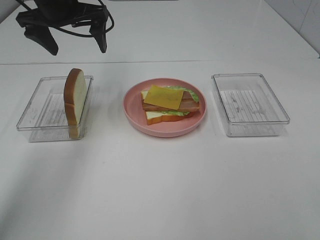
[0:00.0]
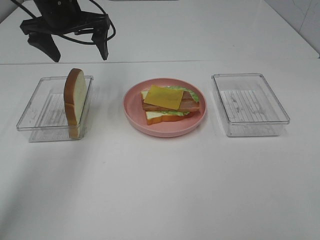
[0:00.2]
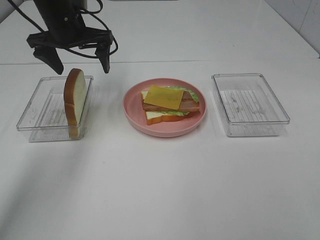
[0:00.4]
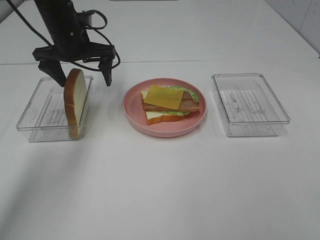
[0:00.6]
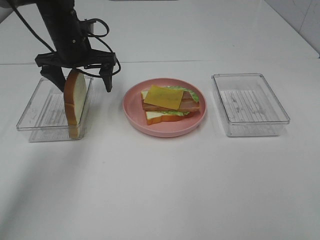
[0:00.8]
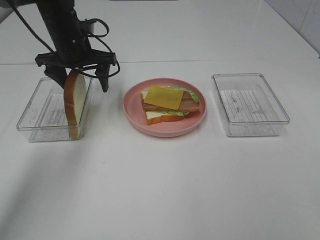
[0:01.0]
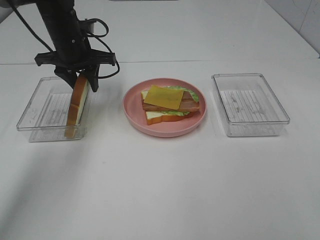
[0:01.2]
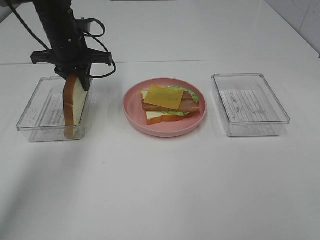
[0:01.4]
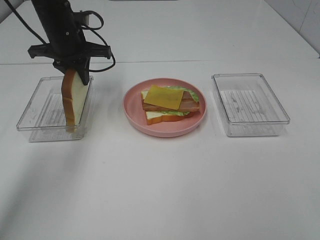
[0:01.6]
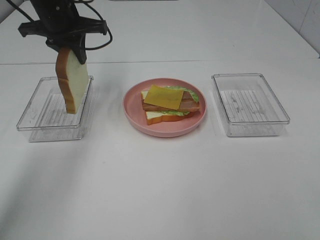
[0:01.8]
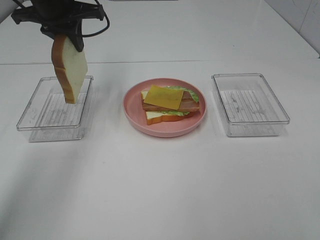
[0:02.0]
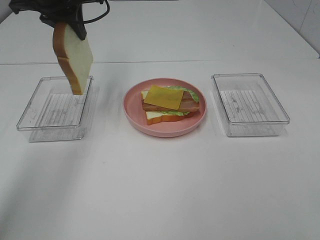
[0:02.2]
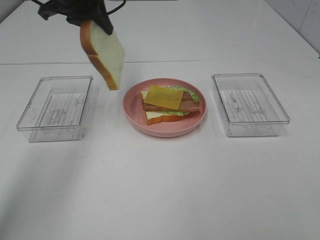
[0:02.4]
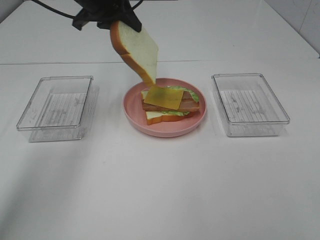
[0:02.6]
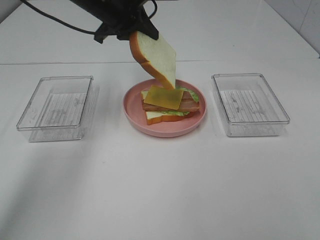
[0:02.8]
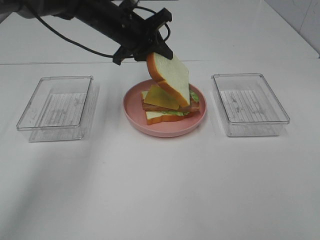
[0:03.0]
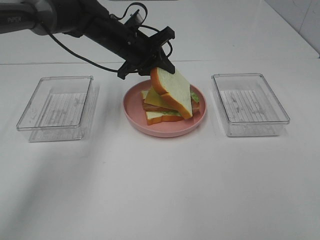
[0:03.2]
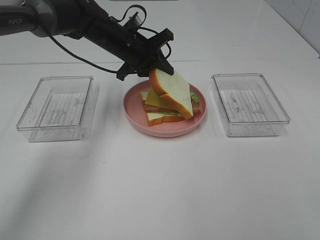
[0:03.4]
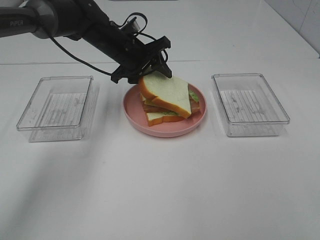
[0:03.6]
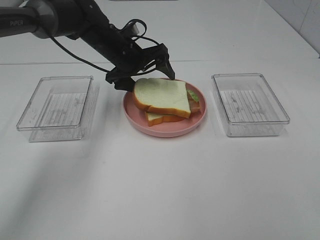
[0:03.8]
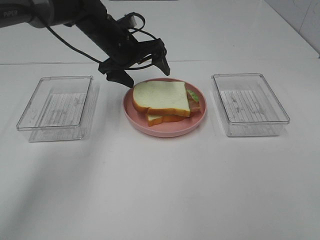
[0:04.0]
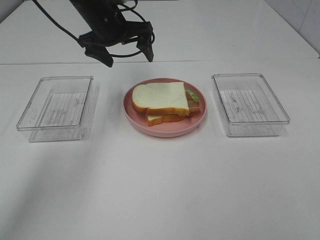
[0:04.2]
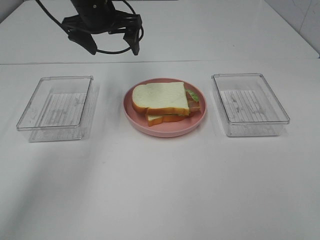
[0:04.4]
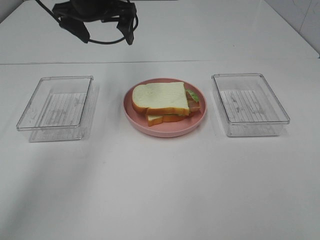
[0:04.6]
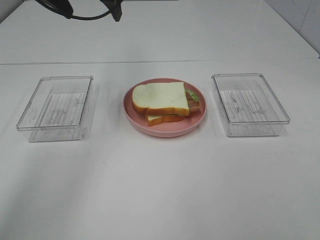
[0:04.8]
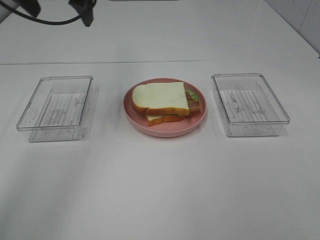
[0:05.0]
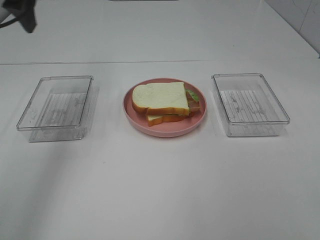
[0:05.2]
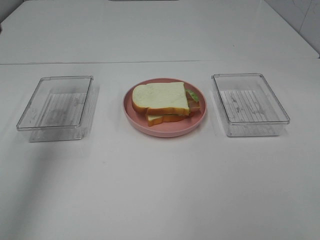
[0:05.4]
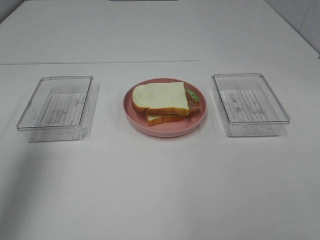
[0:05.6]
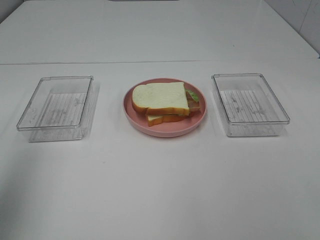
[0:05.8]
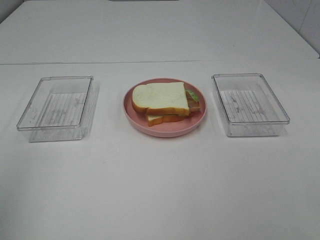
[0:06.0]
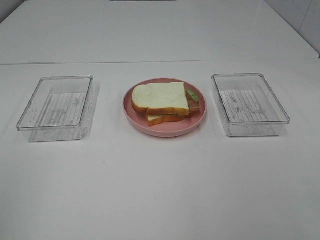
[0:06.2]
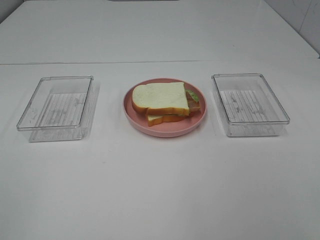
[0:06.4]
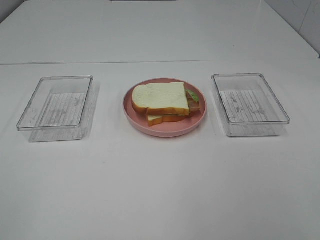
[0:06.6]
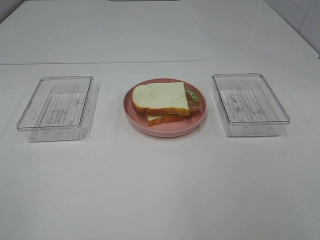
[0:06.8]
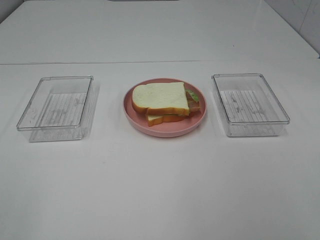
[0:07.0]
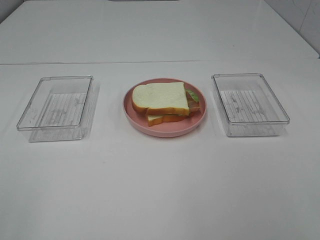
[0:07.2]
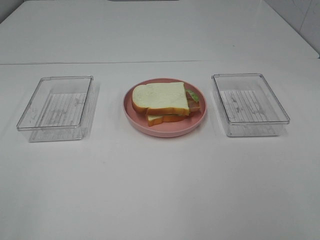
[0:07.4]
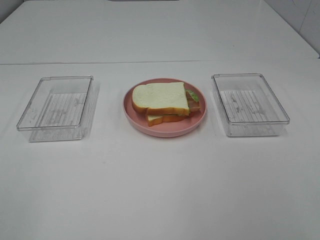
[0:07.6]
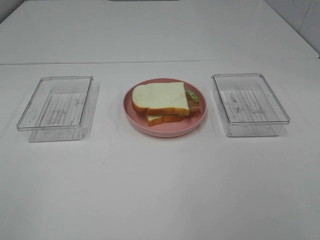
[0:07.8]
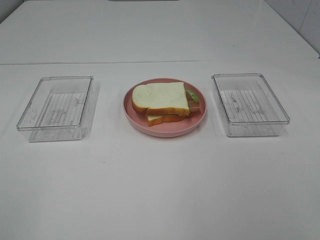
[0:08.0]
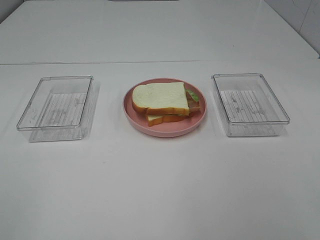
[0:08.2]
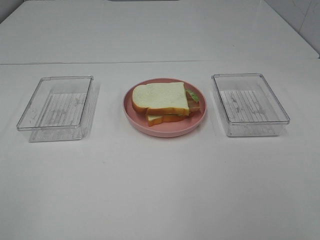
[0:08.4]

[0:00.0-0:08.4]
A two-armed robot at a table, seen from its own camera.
Task of the whole recording: Make sandwiches.
Step, 0:01.6 to 0:04.0: Left hand:place the bread slice on the cheese slice.
0:00.0 to 0:01.4: The left gripper goes approximately 10 cm downward, and closes its fingers.
0:01.4 to 0:02.8: The left gripper moves to the right and upward, roughly 10 cm.
0:02.8 to 0:04.2: The left gripper reaches roughly 10 cm downward, then returns, and opens up.
0:04.2 to 0:05.6: The left gripper shifts roughly 35 cm backward, to the left and upward.
0:05.6 to 0:07.0: The left gripper shifts about 25 cm backward.

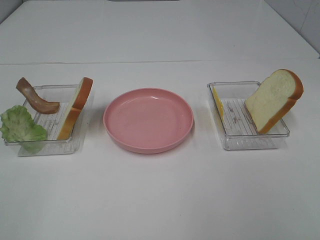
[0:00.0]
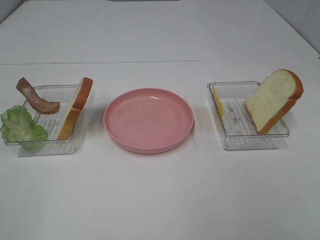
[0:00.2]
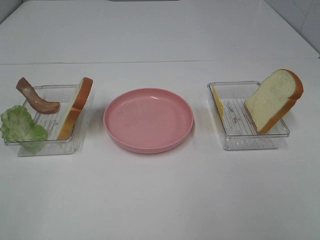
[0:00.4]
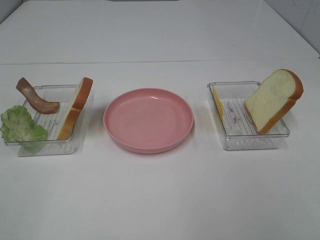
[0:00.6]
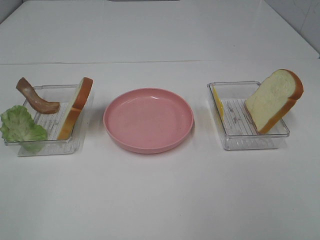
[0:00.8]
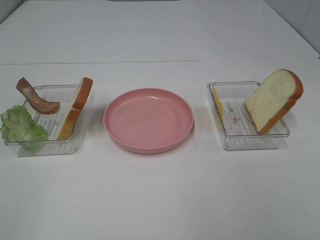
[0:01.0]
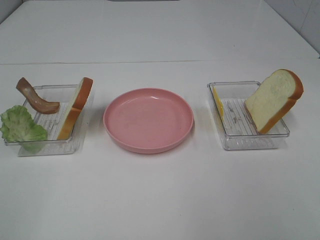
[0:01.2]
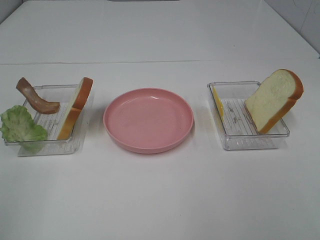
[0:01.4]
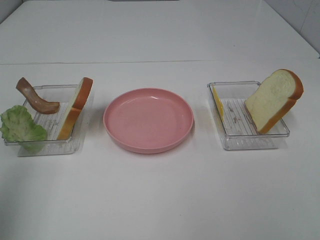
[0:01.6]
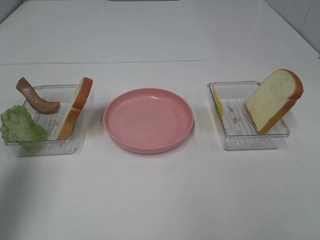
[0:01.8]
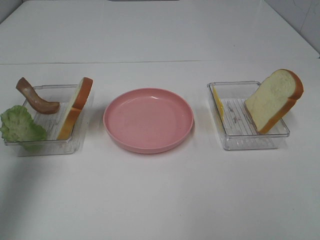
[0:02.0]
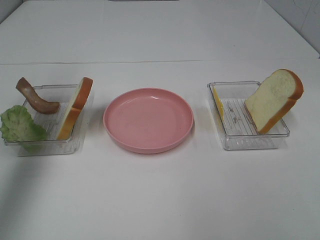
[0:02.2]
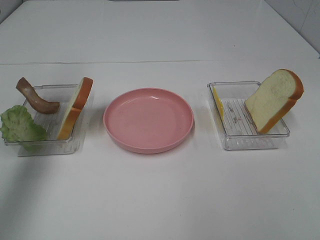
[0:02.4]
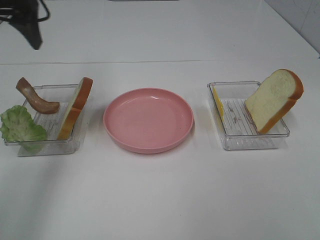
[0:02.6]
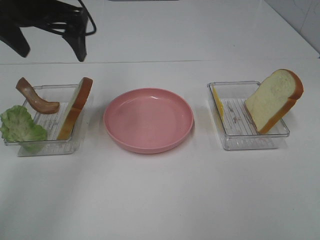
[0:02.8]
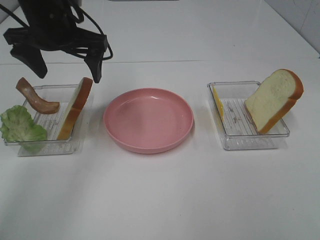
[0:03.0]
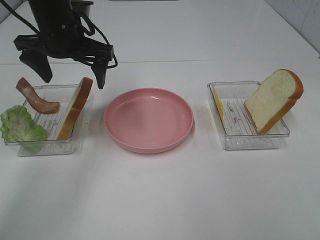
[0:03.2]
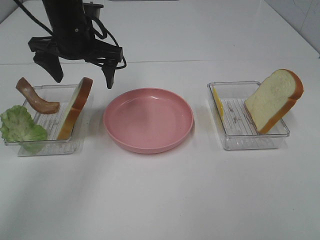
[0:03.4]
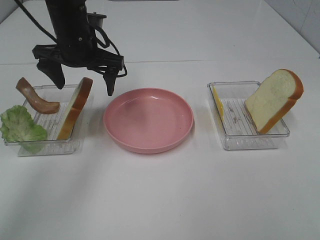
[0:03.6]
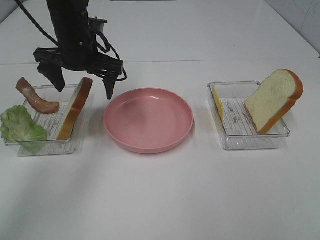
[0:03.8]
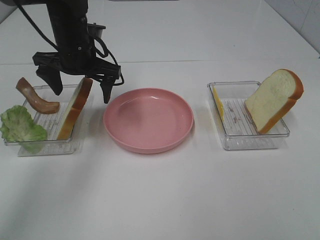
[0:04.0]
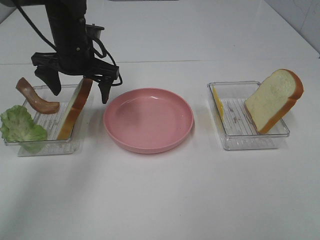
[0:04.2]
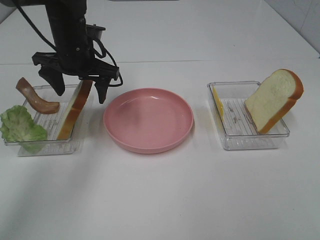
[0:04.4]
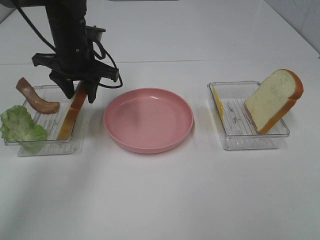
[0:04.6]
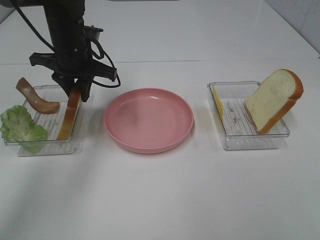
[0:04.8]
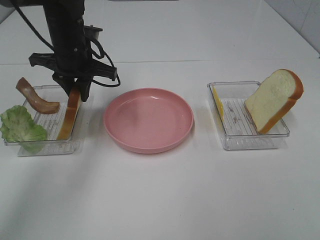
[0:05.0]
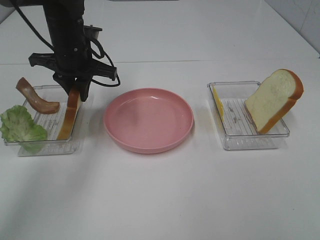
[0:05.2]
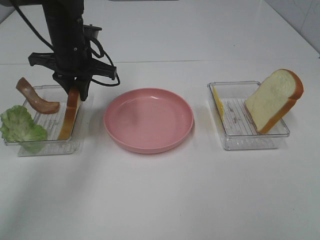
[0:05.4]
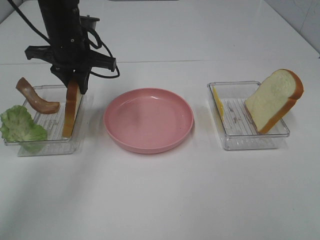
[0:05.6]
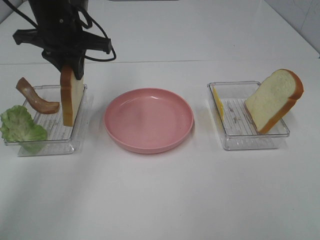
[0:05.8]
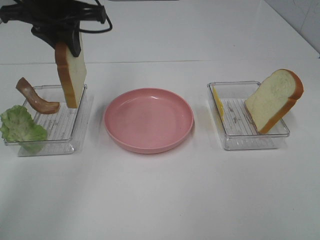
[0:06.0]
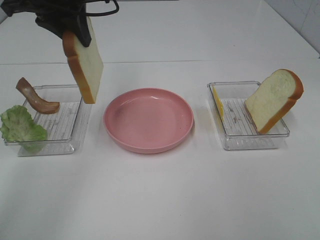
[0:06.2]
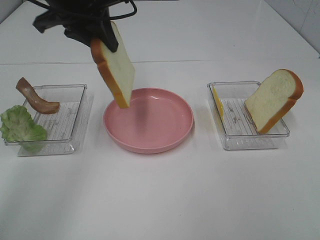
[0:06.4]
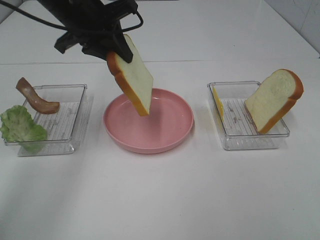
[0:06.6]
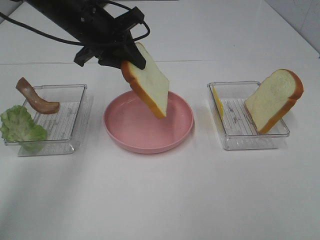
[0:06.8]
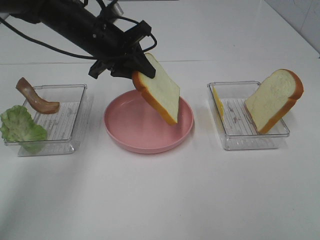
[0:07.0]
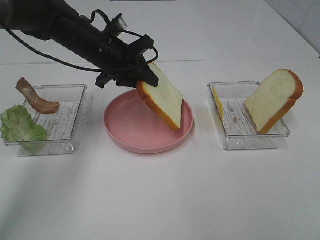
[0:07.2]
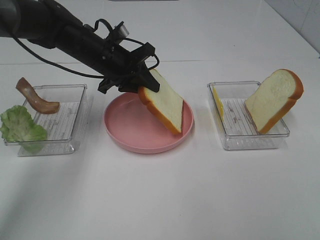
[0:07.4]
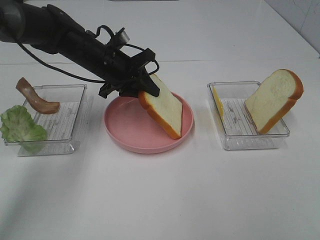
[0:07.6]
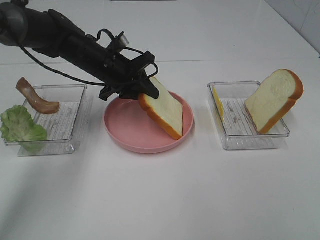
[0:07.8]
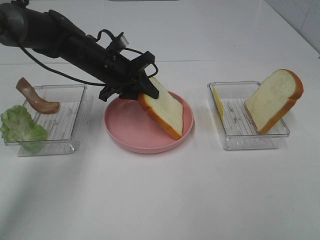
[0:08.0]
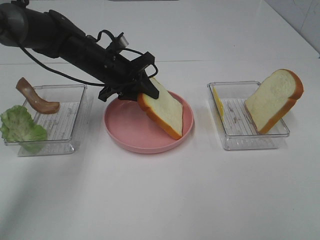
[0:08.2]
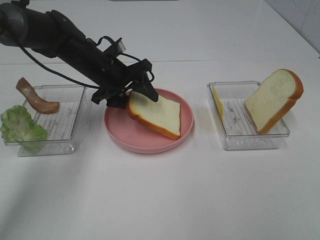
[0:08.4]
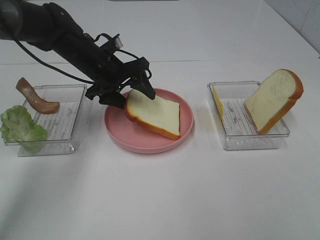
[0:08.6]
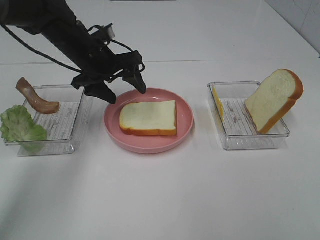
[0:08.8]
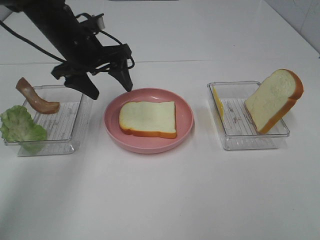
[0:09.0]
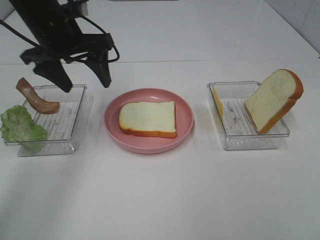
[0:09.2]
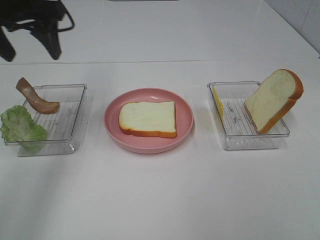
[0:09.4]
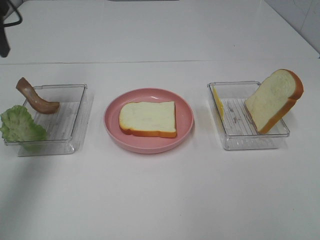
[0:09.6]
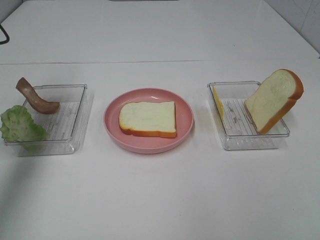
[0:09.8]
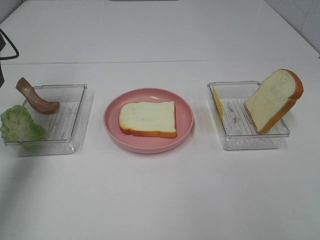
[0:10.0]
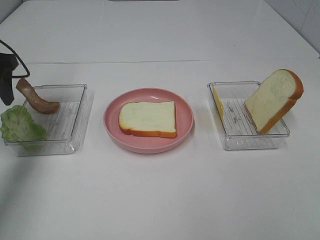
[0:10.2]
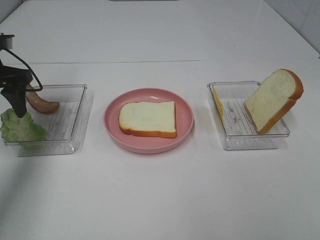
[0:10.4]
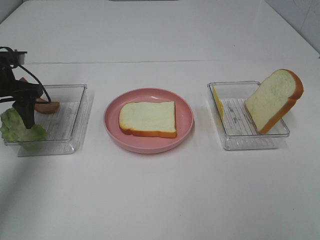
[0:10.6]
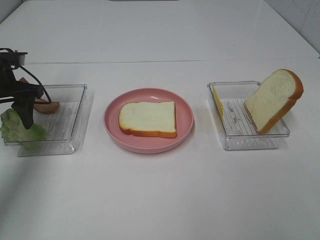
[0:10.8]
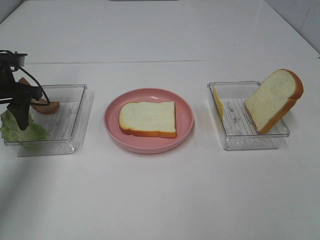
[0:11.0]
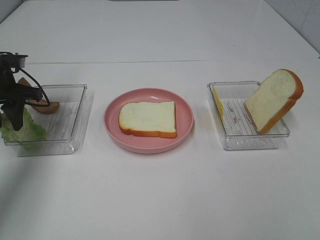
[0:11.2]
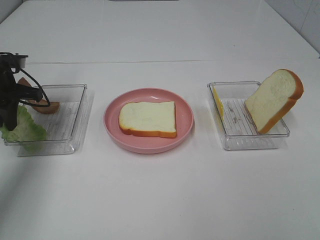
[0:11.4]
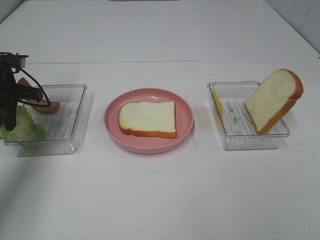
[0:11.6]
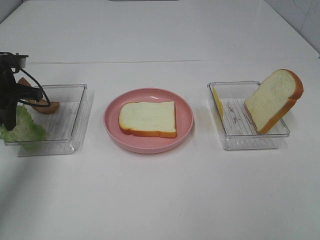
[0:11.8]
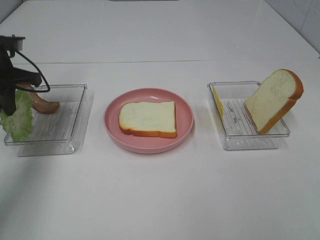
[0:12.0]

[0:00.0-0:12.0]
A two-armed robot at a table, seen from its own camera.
Task of the whole recording: Make sandwiches.
Step, 0:00.0 to 0:05.4: Left hand:grab the bread slice.
Step, 0:05.6 to 0:08.8: Left hand:Place the bread slices on the plate.
Step, 0:09.0 to 0:11.8: Left hand:grab the lettuce slice.
0:00.0 to 0:01.6: The left gripper shifts approximately 15 cm forward and upward.
0:01.6 to 0:03.0: The left gripper heads forward and to the right, covering some 30 cm.
0:03.0 to 0:04.4: The left gripper travels downward by approximately 5 cm.
0:04.4 to 0:06.0: The left gripper shifts roughly 10 cm upward, and closes its fingers.
0:06.0 to 0:07.6: The left gripper heads downward, covering about 15 cm.
0:07.6 to 0:09.0: The left gripper shifts roughly 5 cm upward, and opens.
0:09.0 to 0:10.4: The left gripper is displaced to the left by approximately 15 cm.
0:10.4 to 0:12.0: The left gripper closes its fingers.

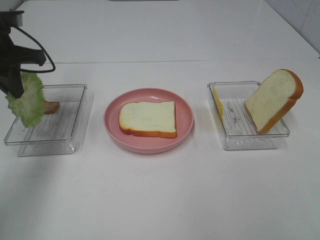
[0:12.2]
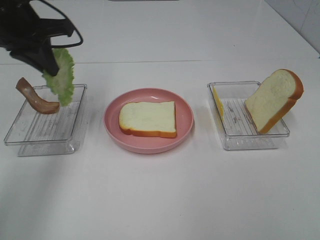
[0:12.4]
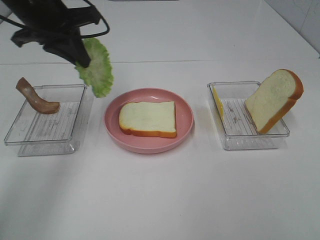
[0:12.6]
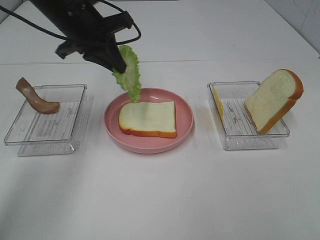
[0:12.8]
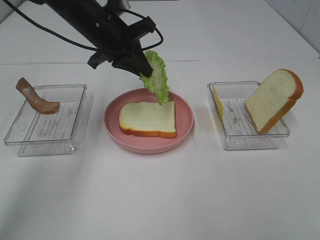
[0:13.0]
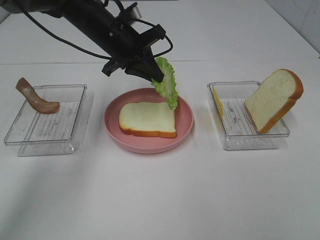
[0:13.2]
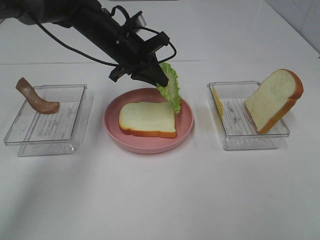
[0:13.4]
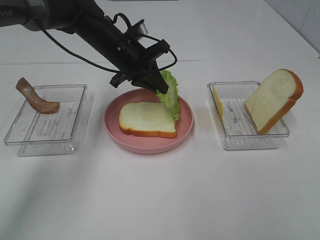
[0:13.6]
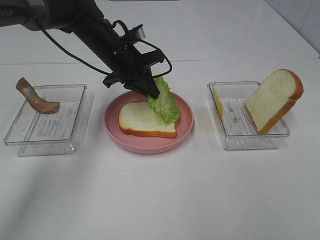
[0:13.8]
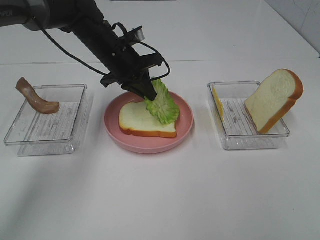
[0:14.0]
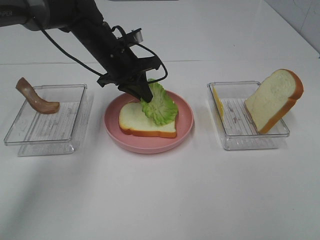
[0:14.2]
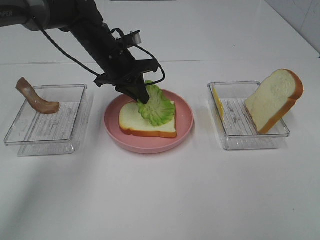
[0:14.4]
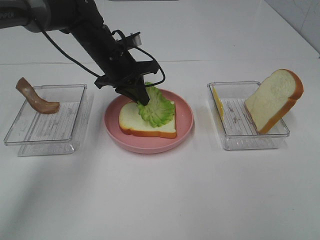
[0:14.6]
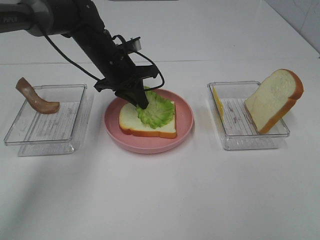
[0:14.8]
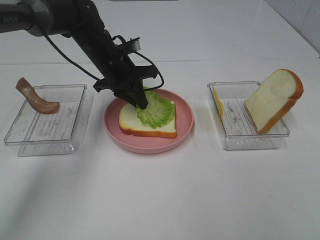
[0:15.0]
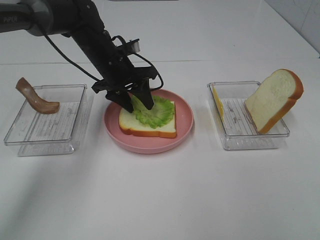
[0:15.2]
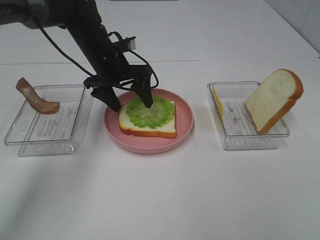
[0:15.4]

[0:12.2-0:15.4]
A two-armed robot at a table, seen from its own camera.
Task of the whole recording: Make sandwiches.
Step, 0:12.2 to 0:15.4: Left hand:Place the lettuce slice on the bread slice.
0:12.2 to 0:13.8: The left gripper goes about 20 cm to the right, downward and forward.
0:13.8 to 0:15.4: The left gripper opens its fingers.
